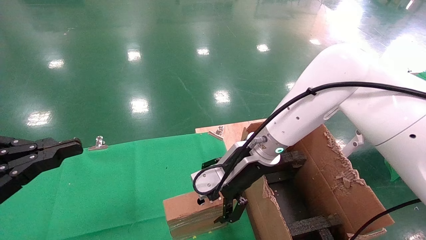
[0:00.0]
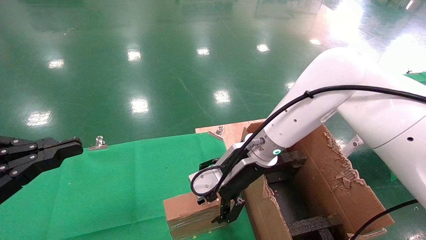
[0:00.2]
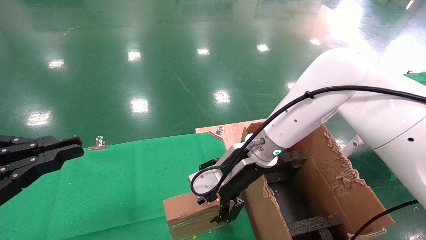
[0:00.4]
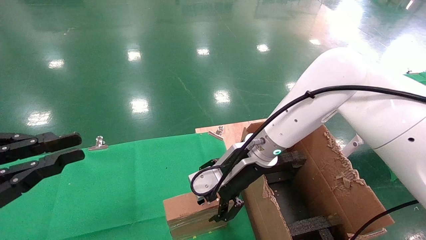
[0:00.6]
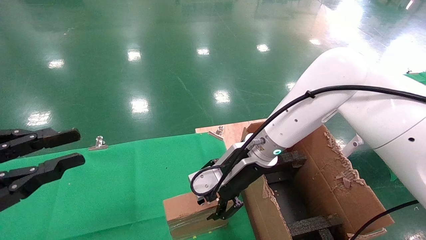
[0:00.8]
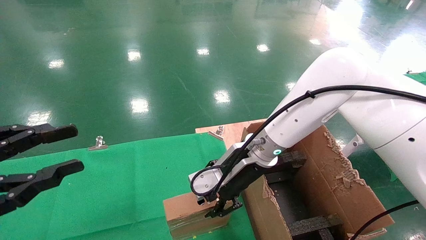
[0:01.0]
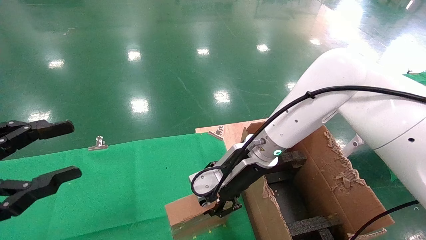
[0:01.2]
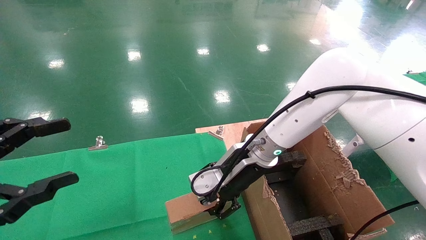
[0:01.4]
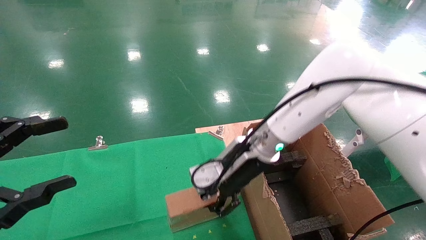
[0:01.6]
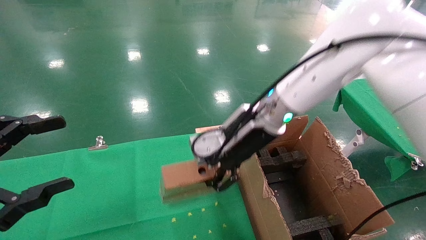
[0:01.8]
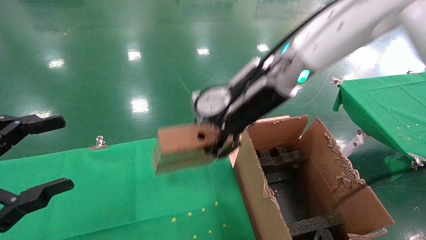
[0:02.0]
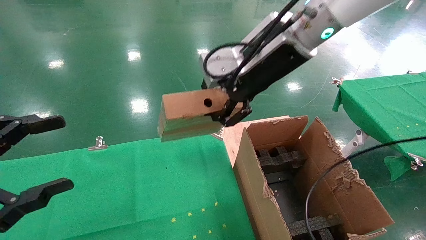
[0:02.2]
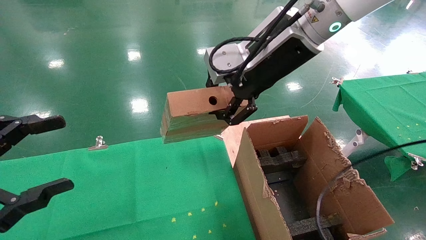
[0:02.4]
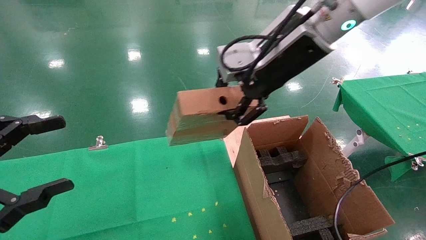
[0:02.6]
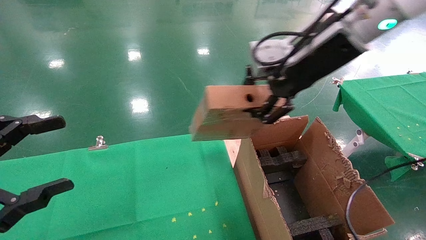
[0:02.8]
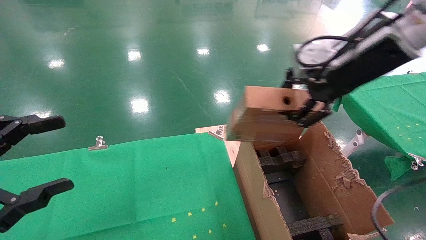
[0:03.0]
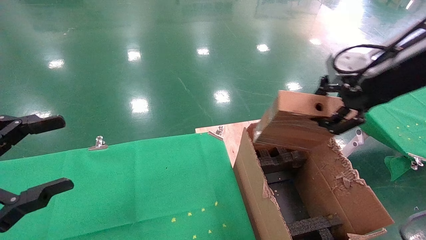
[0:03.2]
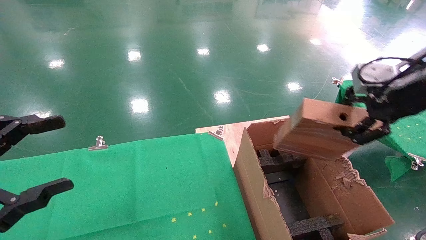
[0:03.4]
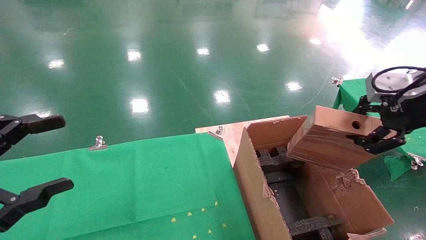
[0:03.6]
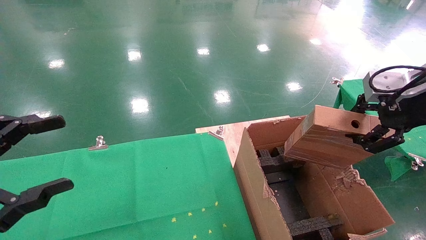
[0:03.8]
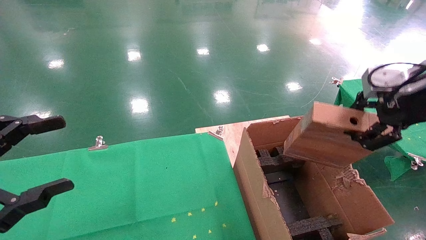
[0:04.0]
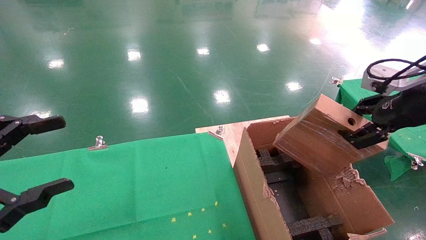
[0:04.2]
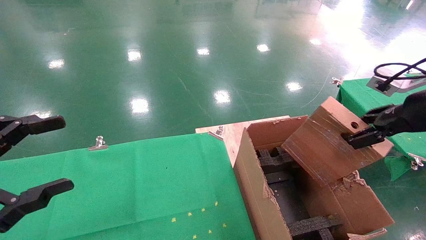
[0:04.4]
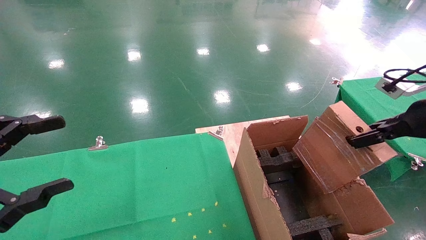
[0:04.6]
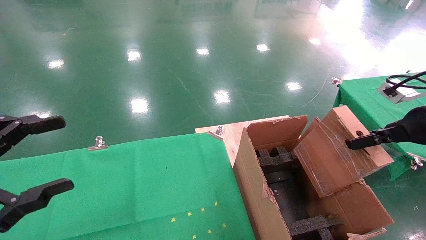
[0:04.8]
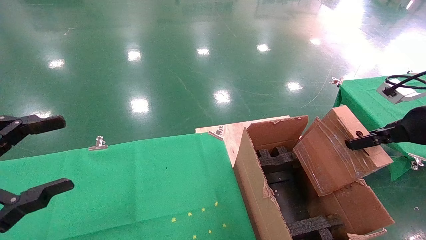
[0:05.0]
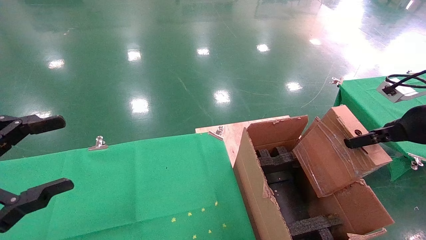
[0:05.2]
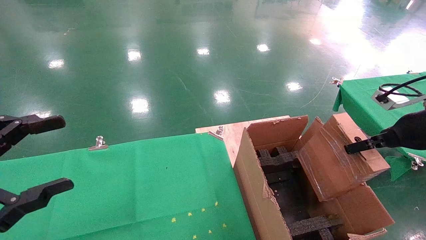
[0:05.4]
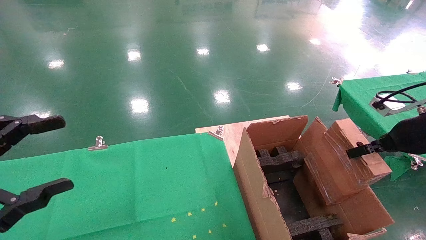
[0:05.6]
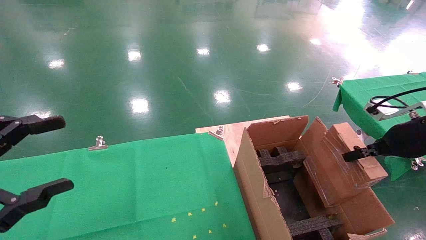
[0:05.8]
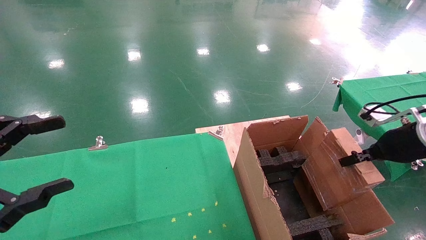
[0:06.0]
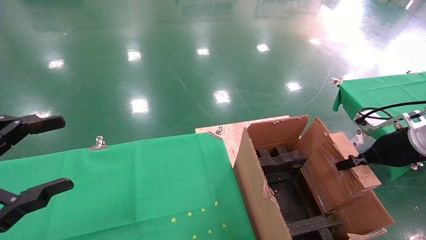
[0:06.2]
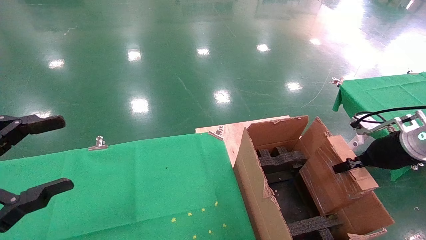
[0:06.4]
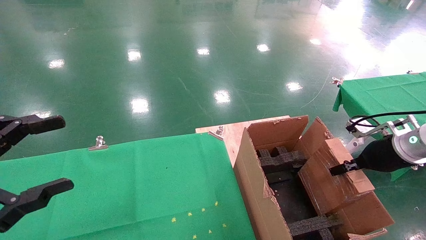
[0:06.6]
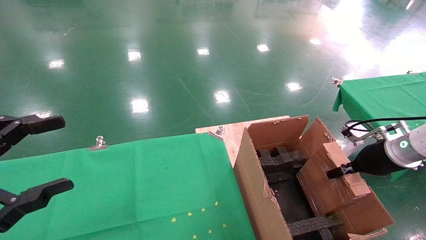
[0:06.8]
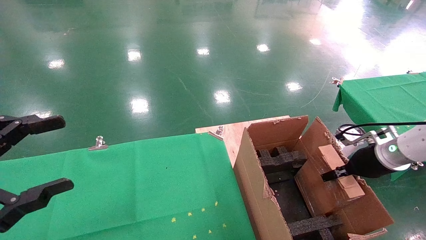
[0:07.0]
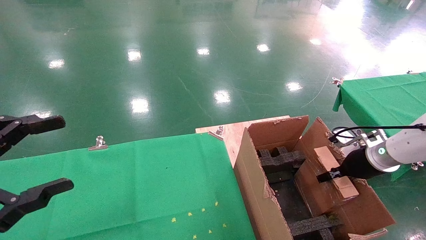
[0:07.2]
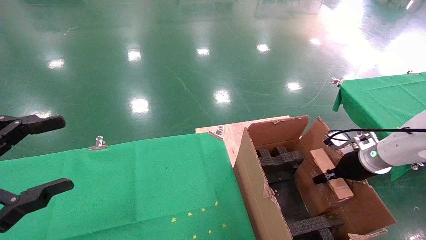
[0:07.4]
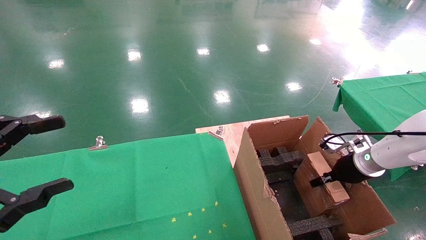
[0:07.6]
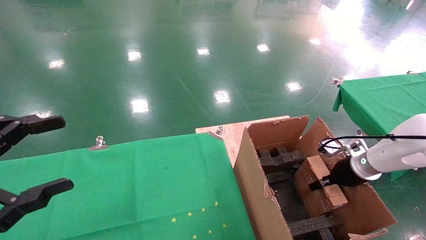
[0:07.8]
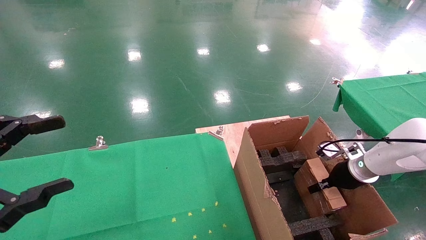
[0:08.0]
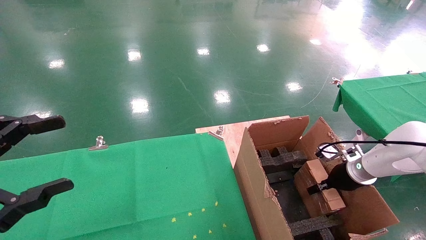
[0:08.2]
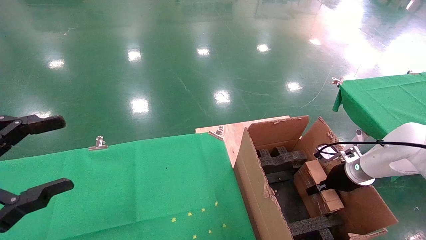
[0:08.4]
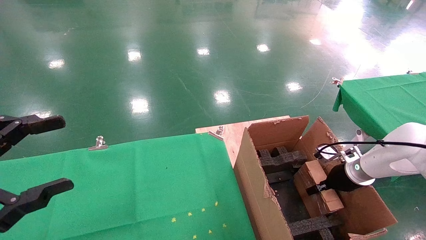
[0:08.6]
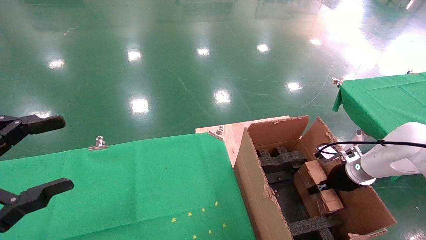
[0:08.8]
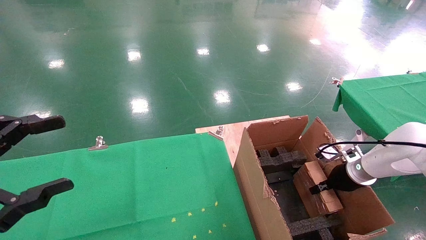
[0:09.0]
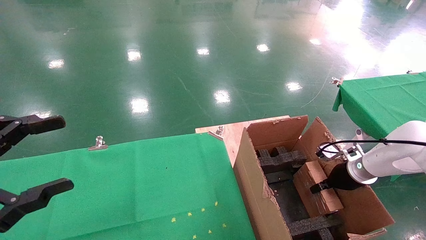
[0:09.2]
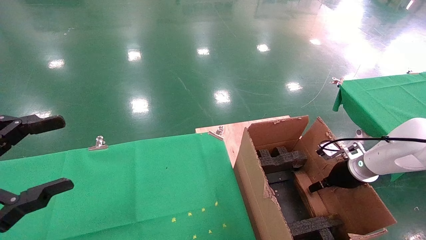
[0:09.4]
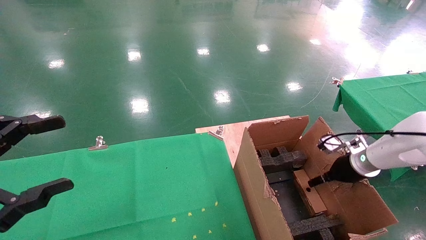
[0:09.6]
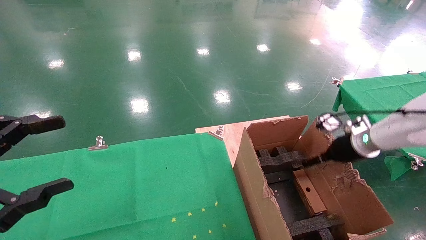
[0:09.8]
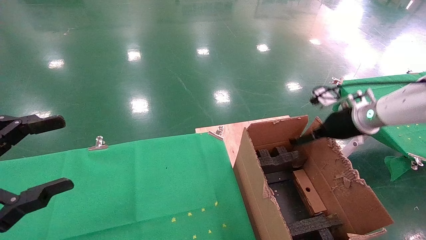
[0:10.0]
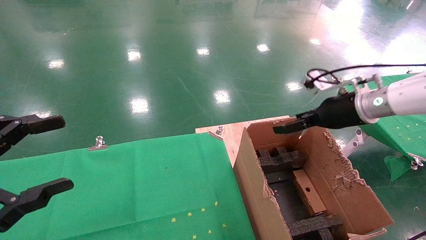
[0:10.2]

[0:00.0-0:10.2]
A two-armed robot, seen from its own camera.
Task of the whole recording: using a robotic arm to pick up a cardboard box and palace it the carton.
Step, 0:01.2 to 0:10.0: Place the mouse and the power cord paper box into the container.
0:00.0 to 0:01.4: The left gripper opens up, while the right gripper closes up.
0:01.4 to 0:03.0: The right gripper is displaced upward and to the right by about 25 cm.
0:03.0 to 0:04.4: The right gripper shifts roughly 20 cm to the right and downward.
0:04.4 to 0:05.8: The right gripper shifts approximately 10 cm downward.
0:05.8 to 0:07.2: The right gripper shifts about 10 cm downward and forward.
0:07.2 to 0:08.8: The right gripper travels downward by roughly 5 cm.
0:08.8 to 0:10.2: The right gripper is displaced upward and to the left by some 20 cm, and opens its fingers.

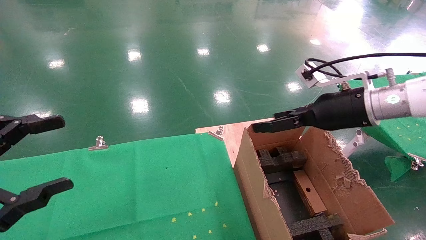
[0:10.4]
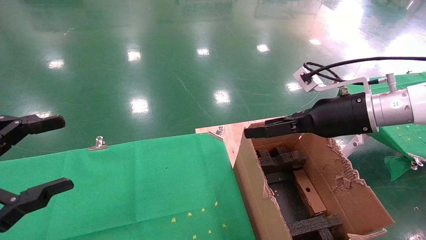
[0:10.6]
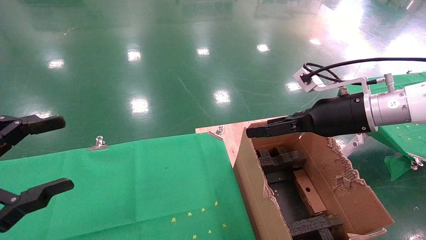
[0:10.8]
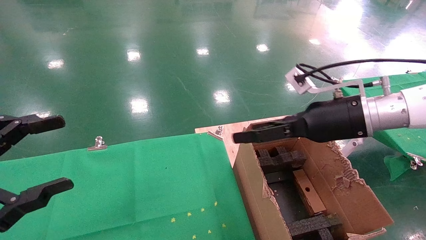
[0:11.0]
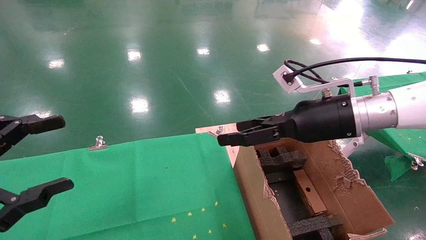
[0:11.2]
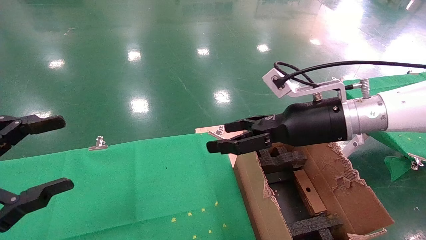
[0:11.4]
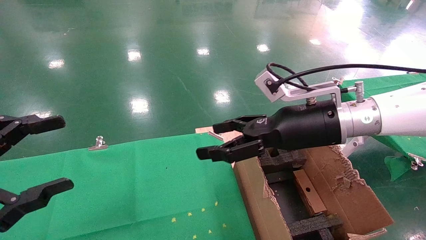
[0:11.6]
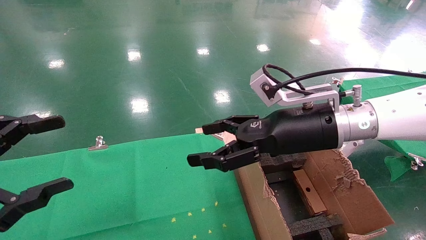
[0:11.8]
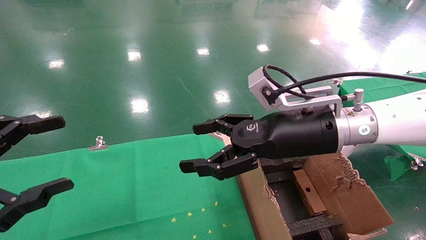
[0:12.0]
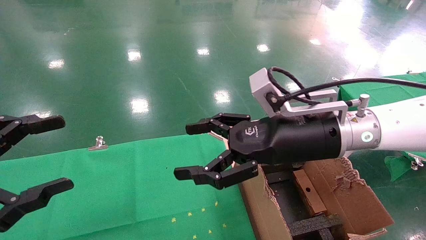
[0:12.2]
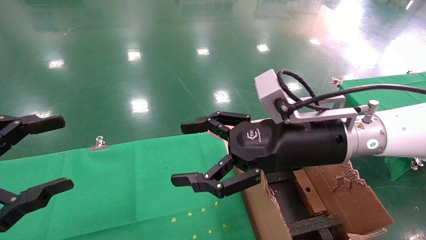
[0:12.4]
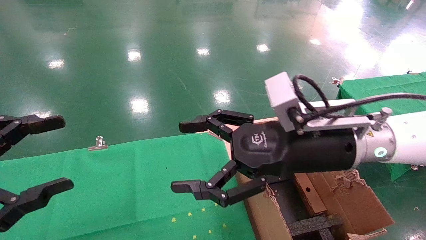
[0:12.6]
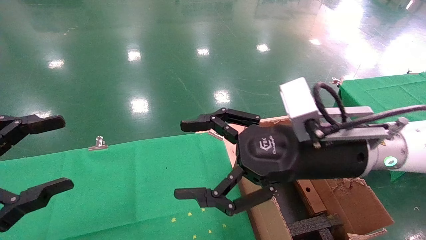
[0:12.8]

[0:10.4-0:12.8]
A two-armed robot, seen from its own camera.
Task of the whole recording: using a robotic arm to pick up a cardboard box and palace it the carton.
0:10.4 to 0:11.6: The right gripper goes about 10 cm to the left.
0:11.6 to 0:12.8: The right gripper moves backward, some 5 cm.

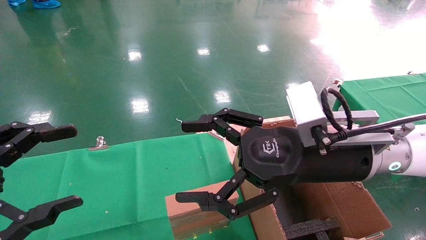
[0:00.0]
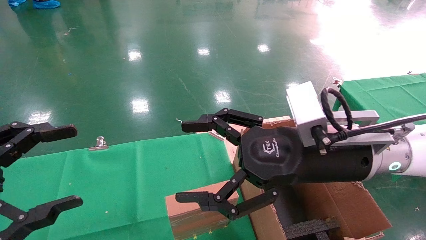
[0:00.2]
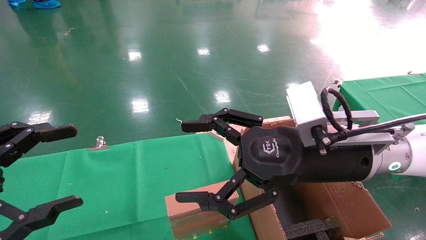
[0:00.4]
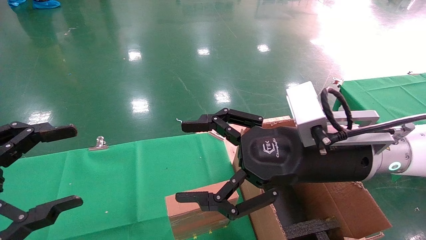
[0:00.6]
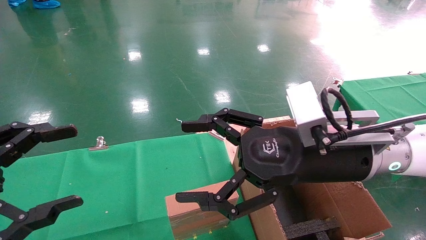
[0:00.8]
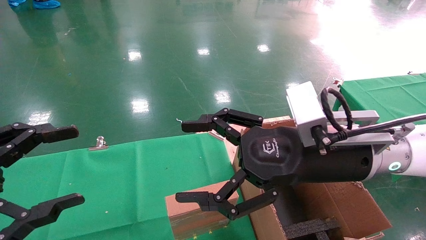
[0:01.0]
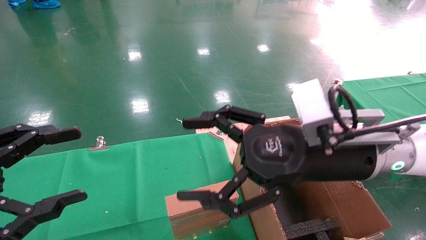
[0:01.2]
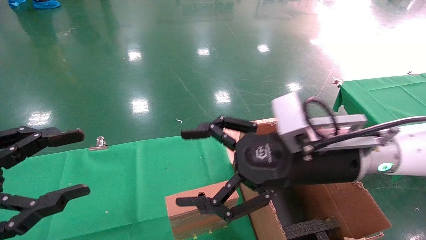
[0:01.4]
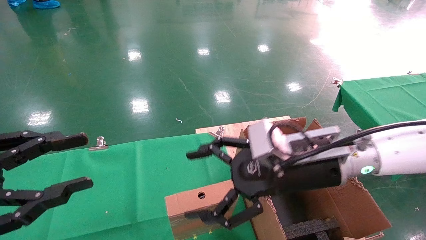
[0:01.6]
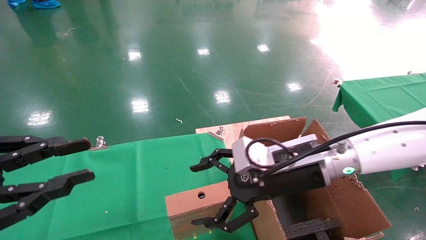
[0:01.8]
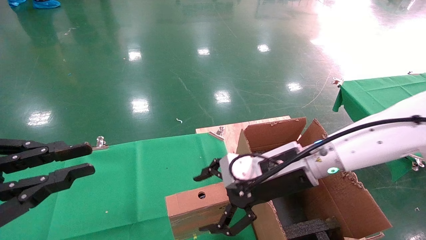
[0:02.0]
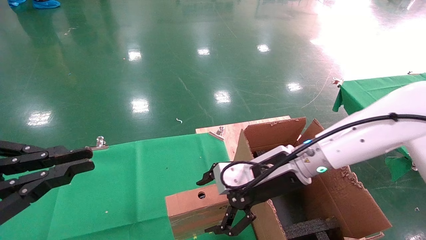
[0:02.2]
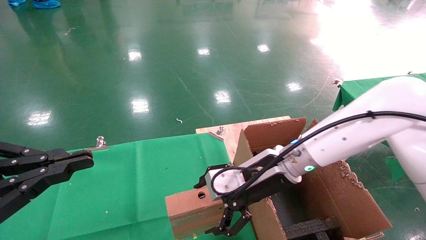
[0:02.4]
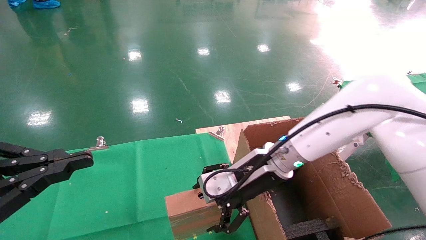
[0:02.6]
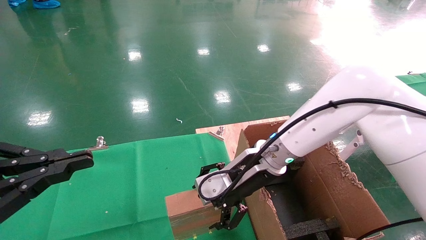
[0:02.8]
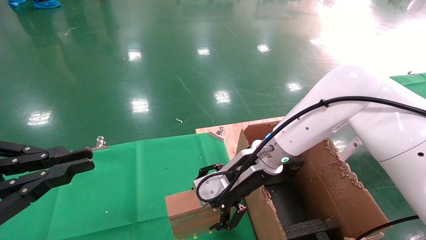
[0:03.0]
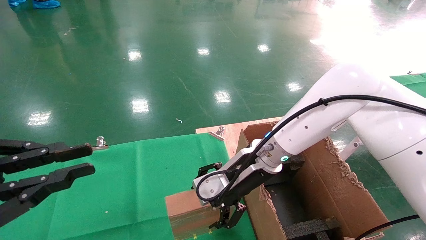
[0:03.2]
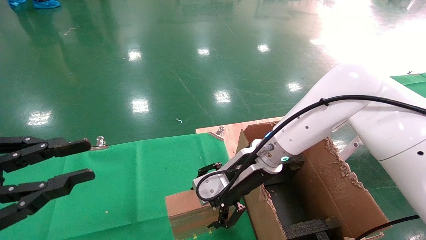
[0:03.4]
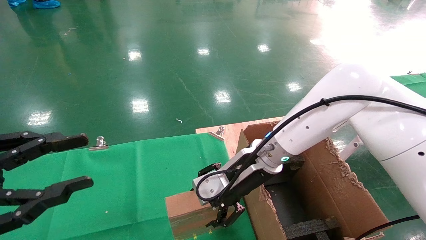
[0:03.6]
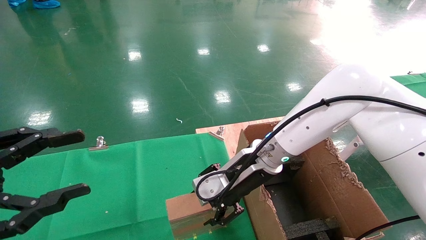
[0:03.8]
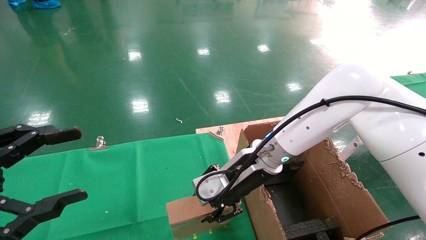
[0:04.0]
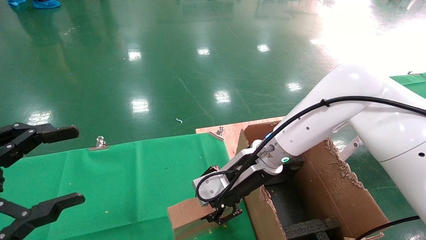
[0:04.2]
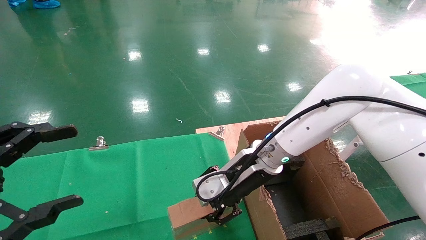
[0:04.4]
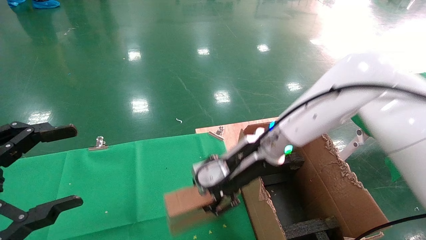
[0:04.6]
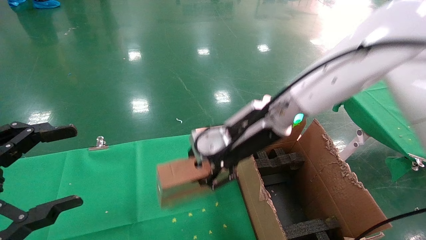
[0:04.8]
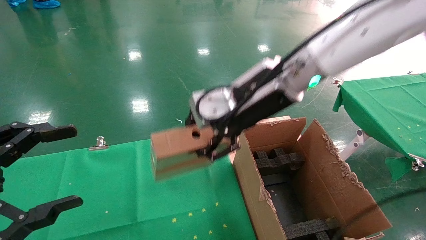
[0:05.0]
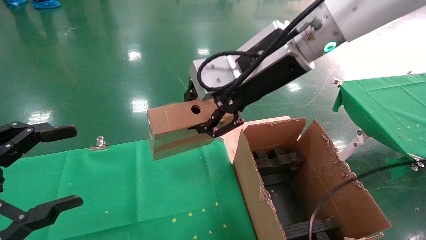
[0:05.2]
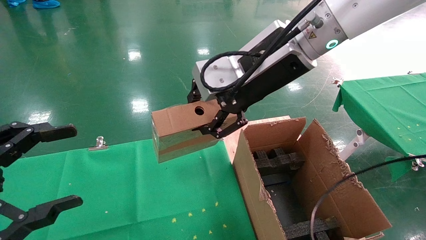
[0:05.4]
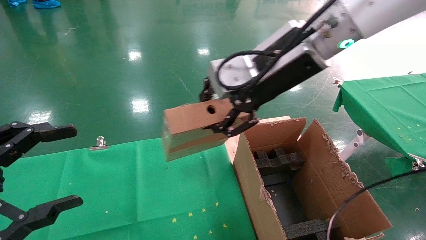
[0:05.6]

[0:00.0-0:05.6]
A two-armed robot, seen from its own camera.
Task of the whole recording: using a robotic arm to pick up a cardboard box and palace it the carton.
Step, 0:01.4 to 0:04.2: Pick up the mouse and the power cord paper box.
0:00.0 to 0:01.4: There are only small adjustments of the grippers.
0:01.4 to 0:02.8: The left gripper closes its fingers; the right gripper is displaced forward and to the left by some 10 cm.
0:02.8 to 0:04.2: The right gripper closes up. Meanwhile the left gripper opens its fingers.
0:04.2 to 0:05.6: The right gripper travels upward by roughly 20 cm.
